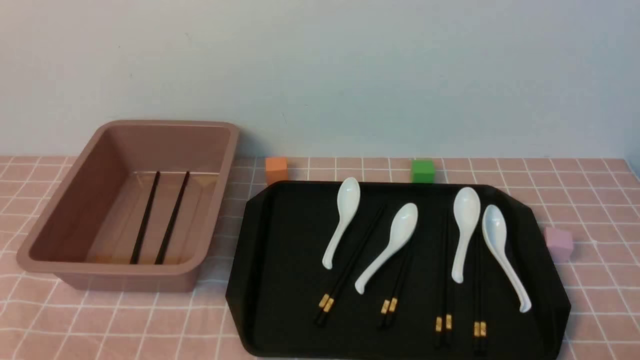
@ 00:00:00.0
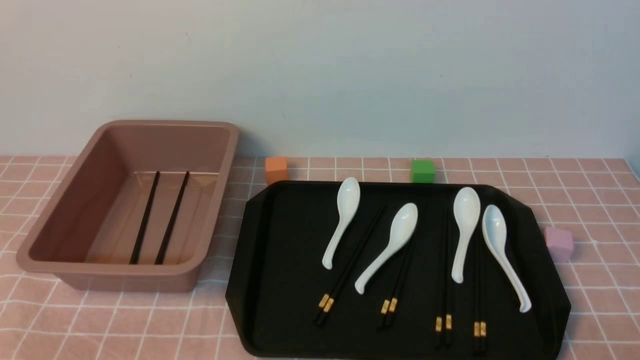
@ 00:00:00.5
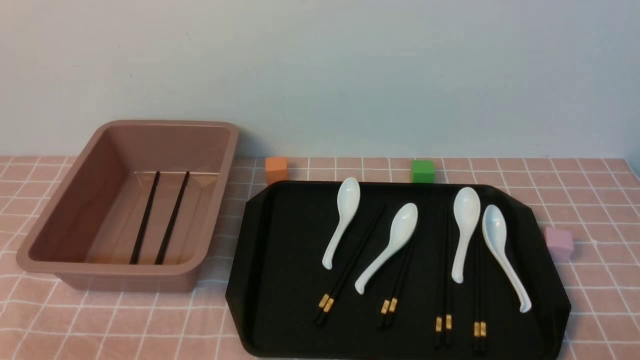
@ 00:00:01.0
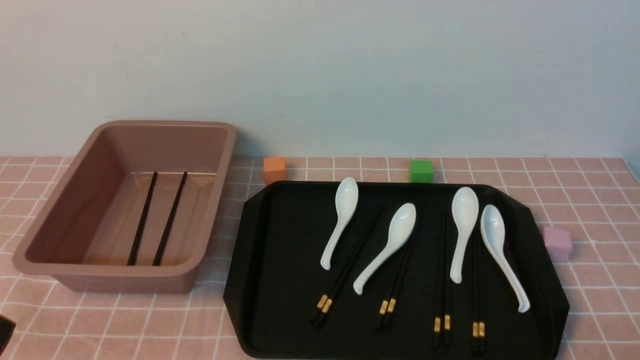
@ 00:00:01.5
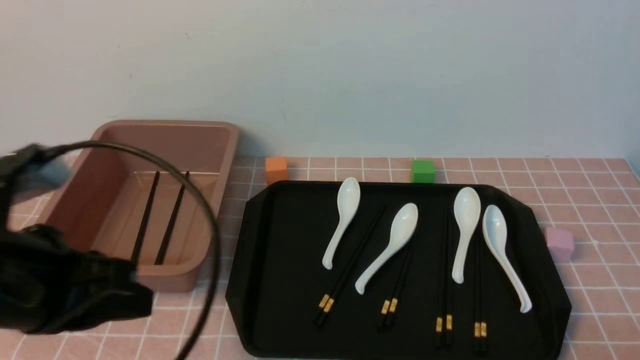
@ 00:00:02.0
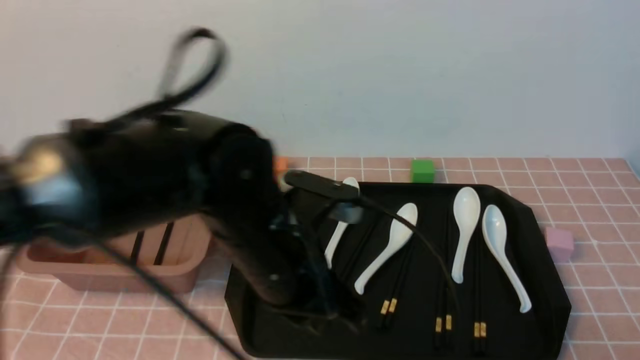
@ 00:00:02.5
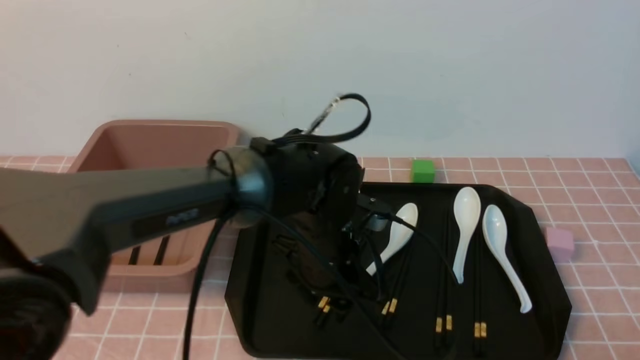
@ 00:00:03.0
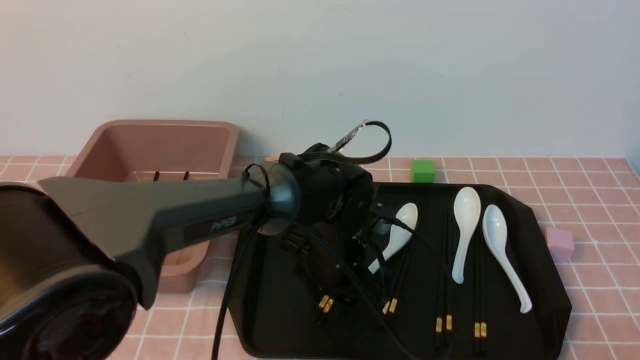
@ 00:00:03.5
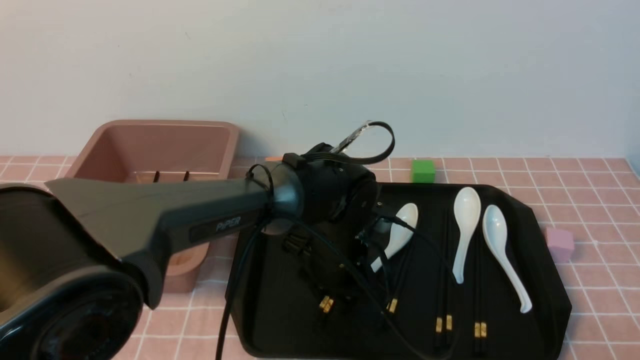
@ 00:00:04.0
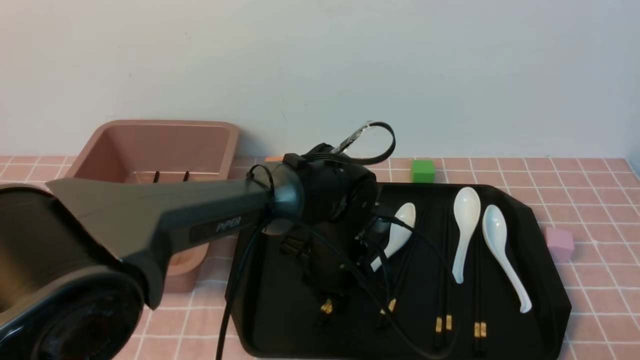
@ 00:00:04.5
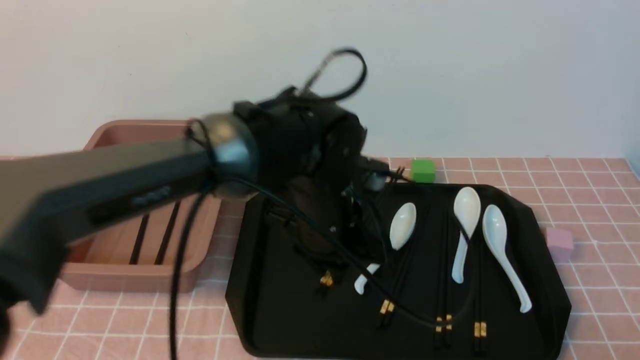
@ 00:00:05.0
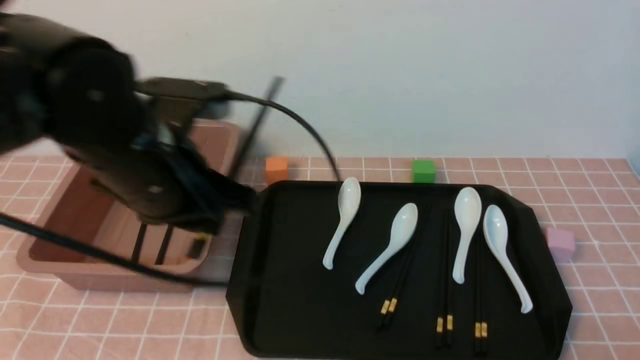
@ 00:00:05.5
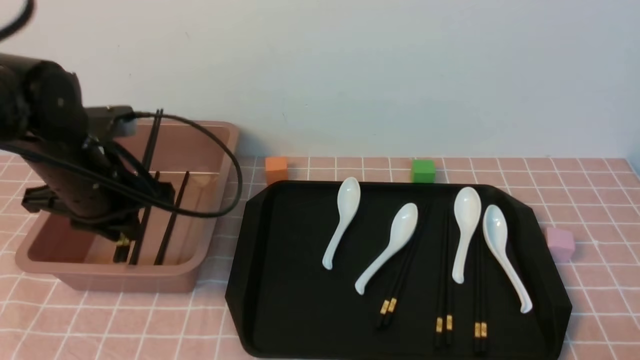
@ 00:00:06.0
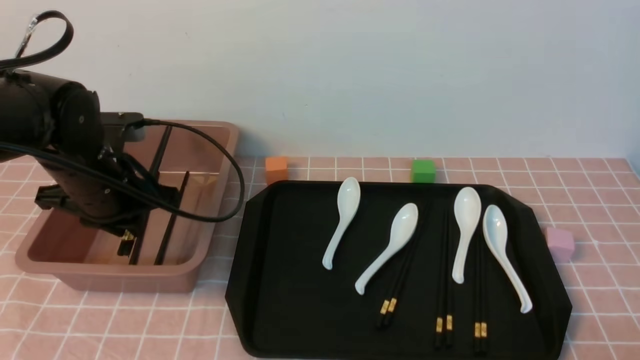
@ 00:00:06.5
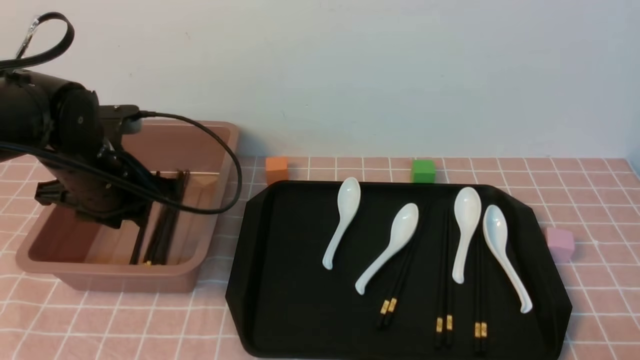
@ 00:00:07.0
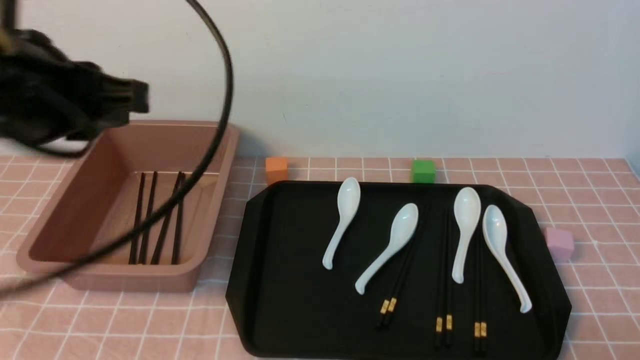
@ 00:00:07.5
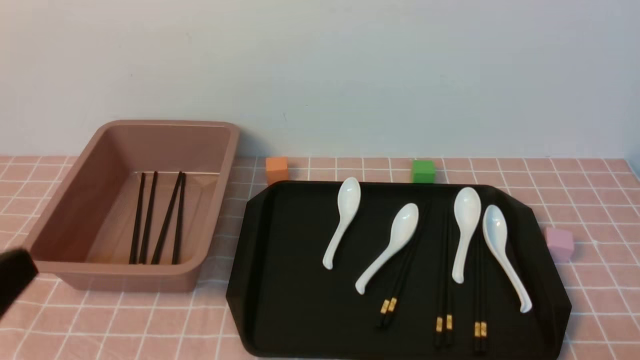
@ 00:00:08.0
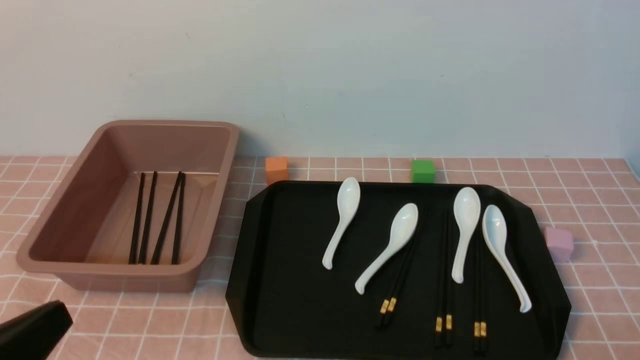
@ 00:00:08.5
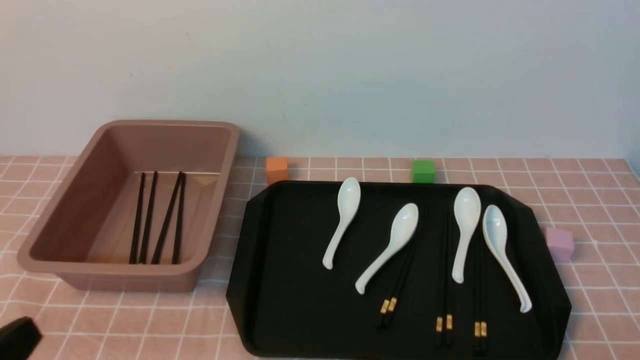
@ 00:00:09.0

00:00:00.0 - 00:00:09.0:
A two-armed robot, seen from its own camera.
Step, 00:00:00.0 - 00:00:05.0: use the left arm to grab a pair of chopsticks.
Step, 00:00:05.5 - 00:00:07.0: use the left arm to put the chopsticks into the lunch box.
00:00:00.0 - 00:00:02.0: The left gripper is displaced upward, forward and to the right by about 20 cm.
00:00:02.0 - 00:00:04.5: The left gripper goes approximately 30 cm to the right, forward and downward, and opens, then closes again.
00:00:04.5 - 00:00:07.0: The left gripper heads to the left and upward, covering some 25 cm.
00:00:07.0 - 00:00:09.0: The left gripper moves backward, about 30 cm, and closes up.

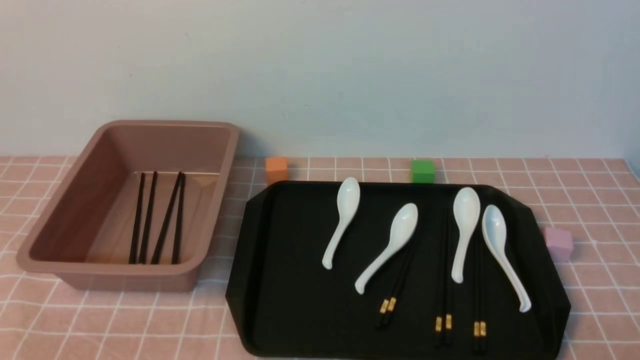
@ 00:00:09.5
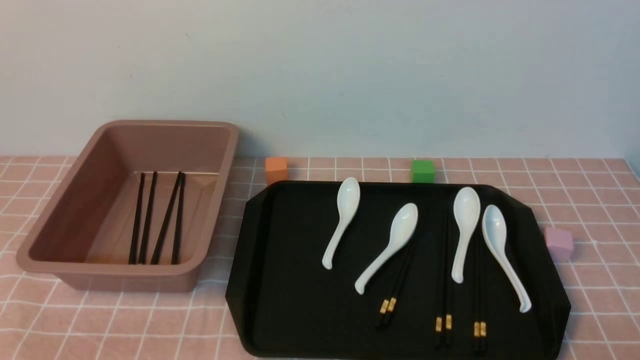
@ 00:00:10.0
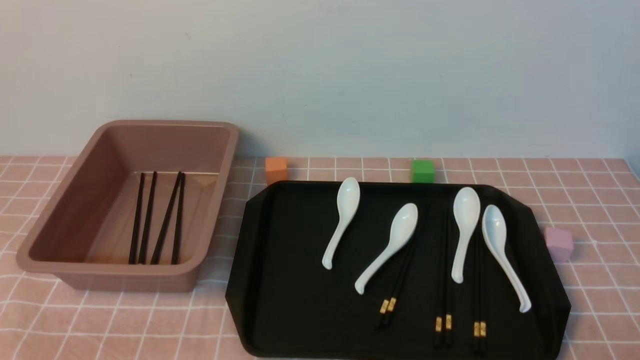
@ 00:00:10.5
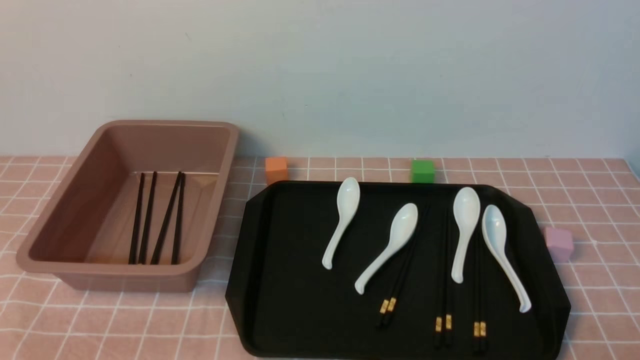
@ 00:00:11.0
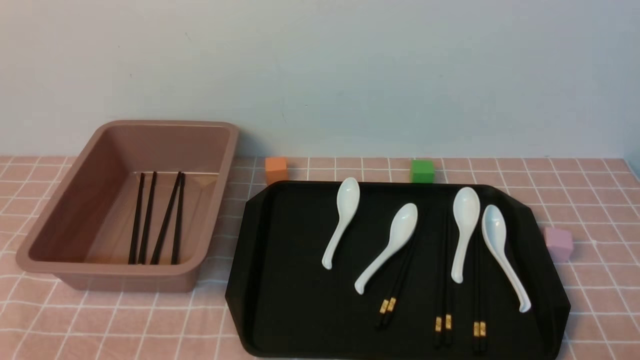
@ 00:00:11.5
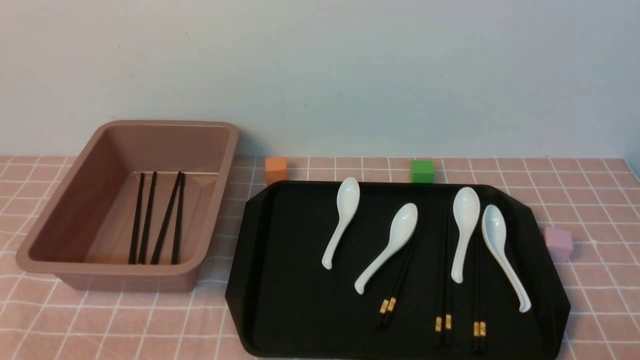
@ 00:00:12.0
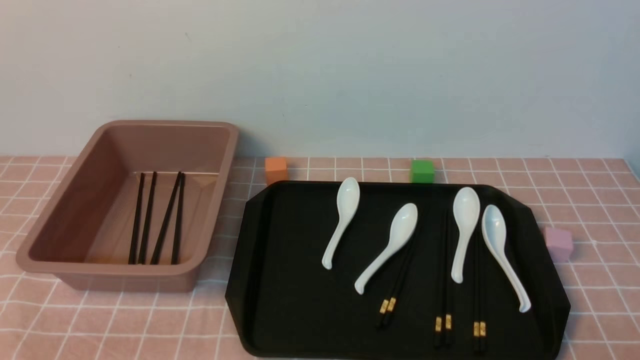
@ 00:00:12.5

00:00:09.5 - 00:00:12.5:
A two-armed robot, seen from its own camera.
00:00:11.0 - 00:00:12.5: Both grippers stay about where they are.
